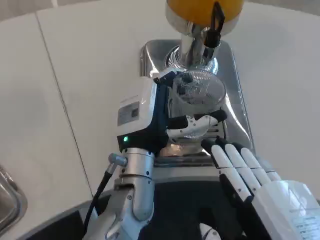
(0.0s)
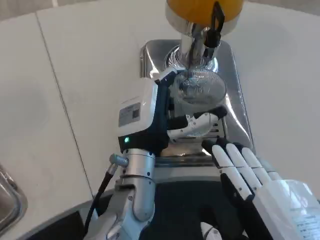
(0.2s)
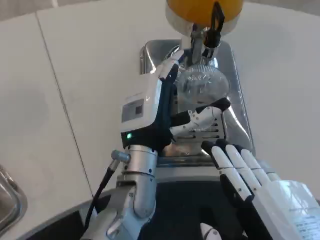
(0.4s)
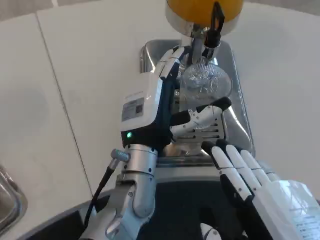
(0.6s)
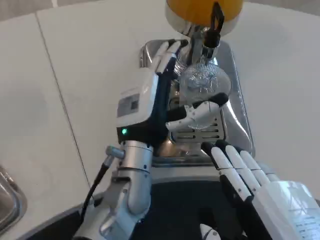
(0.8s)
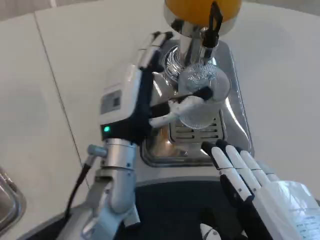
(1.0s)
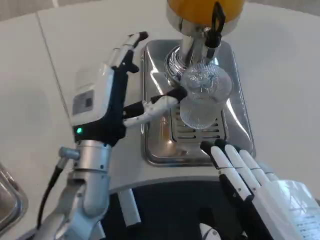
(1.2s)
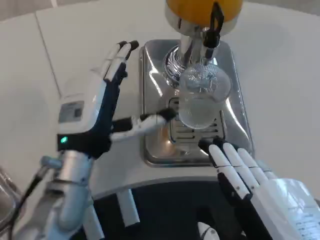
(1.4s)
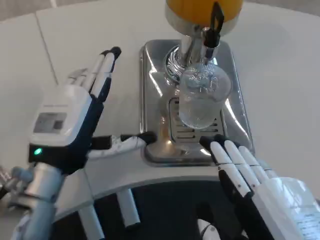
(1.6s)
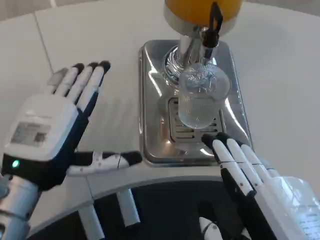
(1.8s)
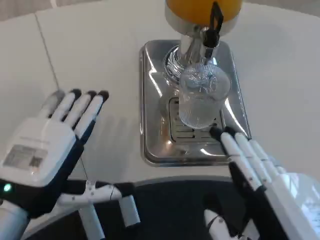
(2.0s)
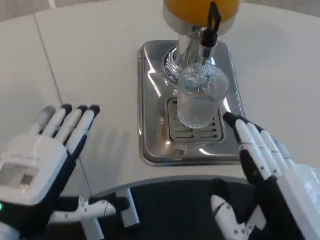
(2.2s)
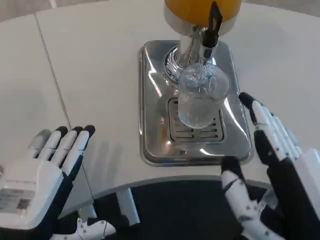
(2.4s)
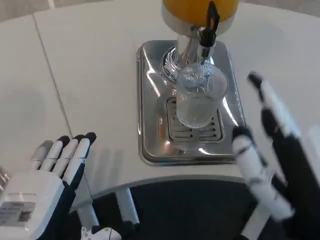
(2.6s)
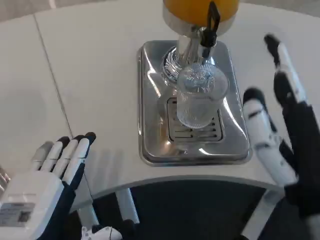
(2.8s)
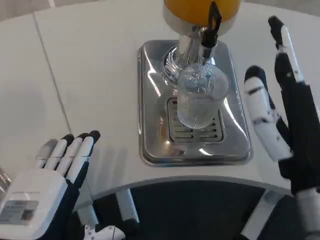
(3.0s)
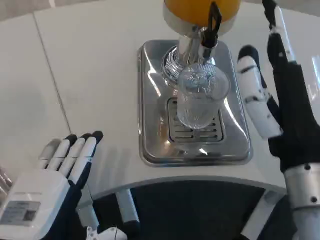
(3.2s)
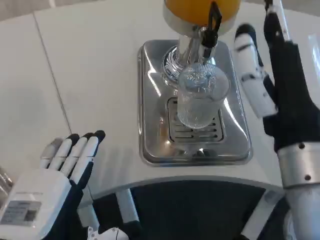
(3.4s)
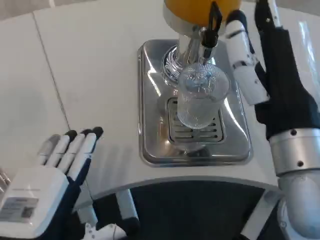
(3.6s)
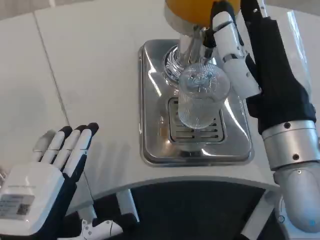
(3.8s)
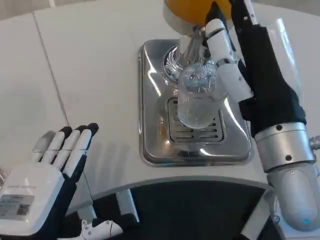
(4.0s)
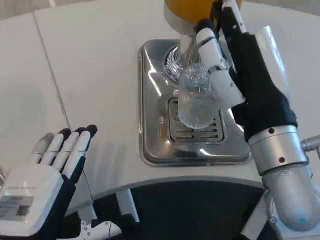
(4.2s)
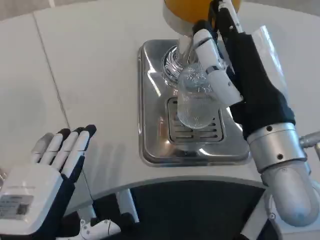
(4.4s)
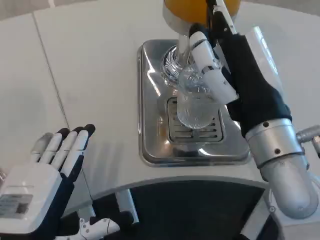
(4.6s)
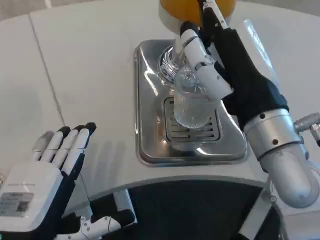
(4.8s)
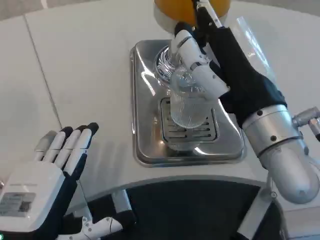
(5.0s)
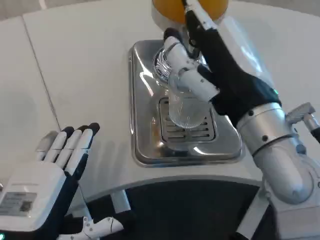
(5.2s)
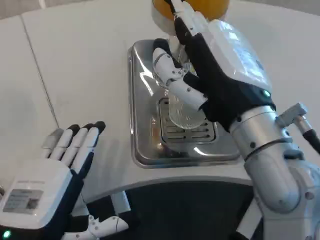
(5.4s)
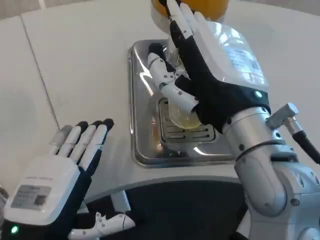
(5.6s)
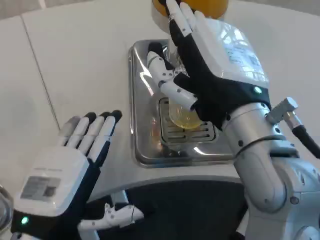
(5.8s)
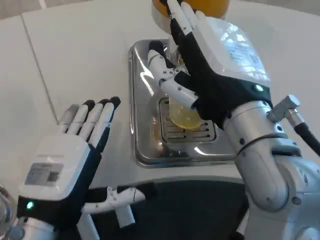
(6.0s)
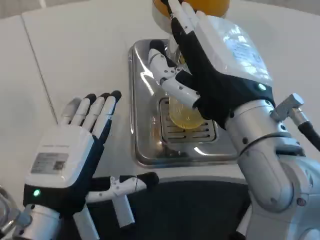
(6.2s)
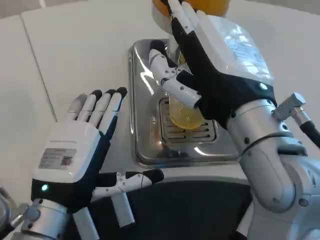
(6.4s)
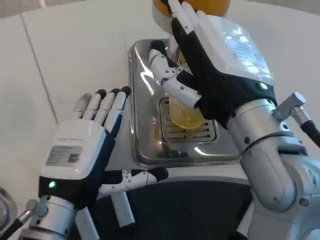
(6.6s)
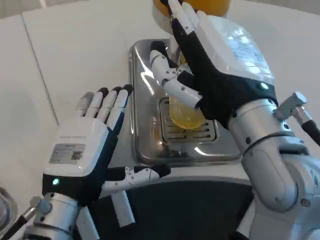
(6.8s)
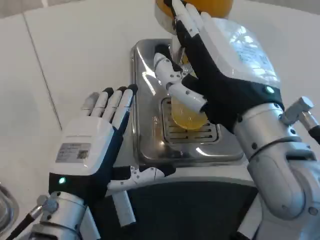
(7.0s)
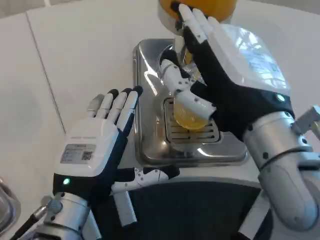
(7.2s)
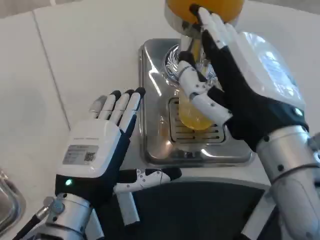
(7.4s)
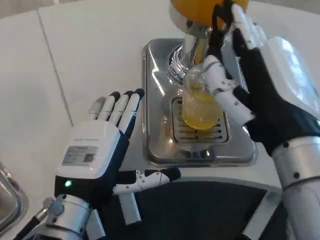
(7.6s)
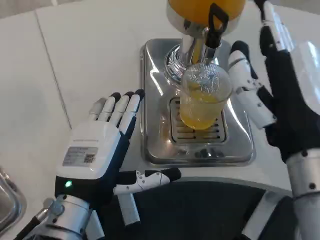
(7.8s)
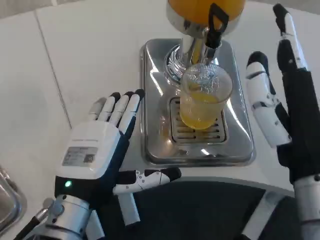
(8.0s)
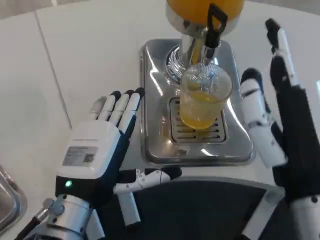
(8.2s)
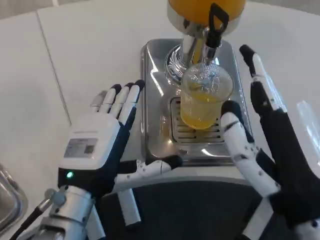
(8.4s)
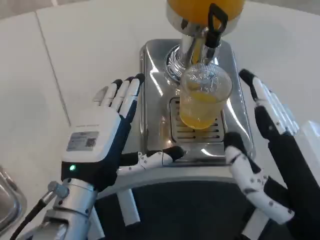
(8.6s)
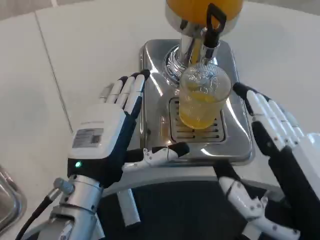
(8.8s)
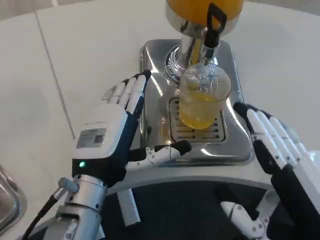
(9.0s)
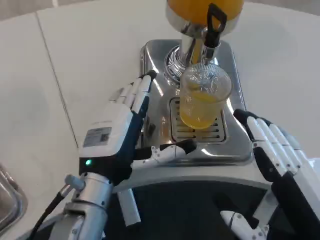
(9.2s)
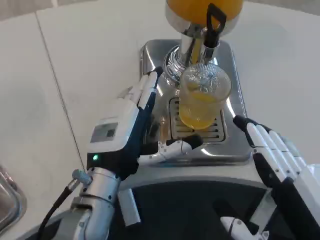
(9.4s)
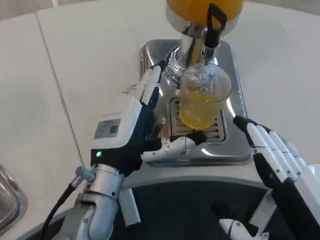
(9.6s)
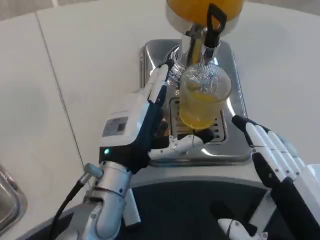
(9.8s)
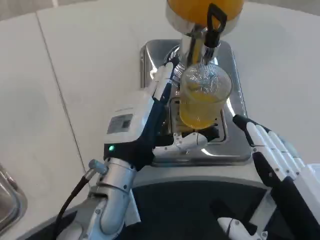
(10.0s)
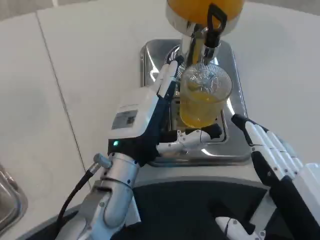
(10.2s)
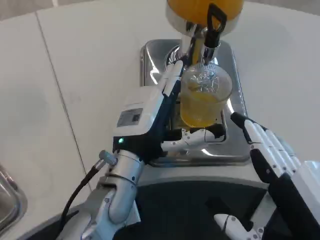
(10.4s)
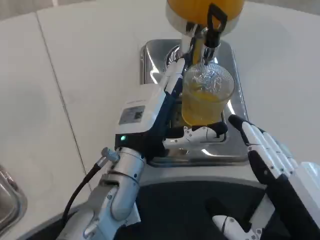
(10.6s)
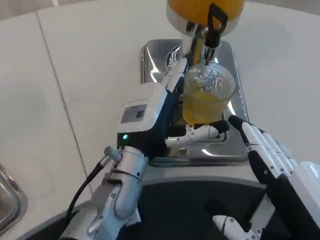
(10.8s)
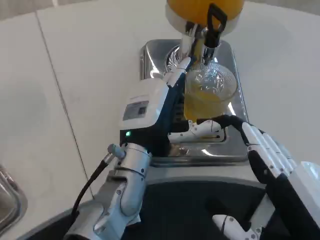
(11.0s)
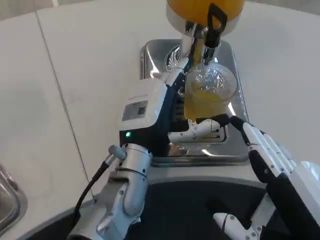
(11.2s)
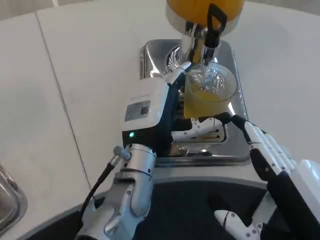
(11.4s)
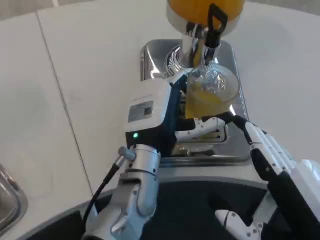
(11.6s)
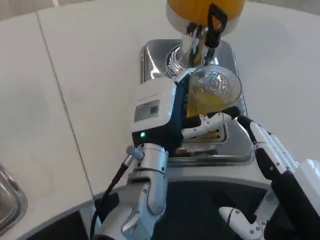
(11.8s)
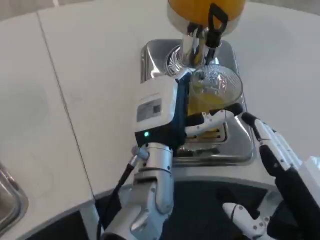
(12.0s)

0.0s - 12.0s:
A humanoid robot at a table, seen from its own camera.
Task of the whole recording: Grasp the cup under the faucet to collect the drink, then remove the cup.
0.0s - 1.6s: The left hand is displaced to the left by some 15 cm.
1.6s - 3.0s: The left hand goes some 10 cm backward, while the right hand is displaced forward by roughly 10 cm.
3.0s - 4.4s: The right hand is displaced forward by some 5 cm.
4.4s - 6.0s: The right hand ends up about 5 cm from where it was. Meanwhile the left hand moves some 5 cm.
6.0s - 7.6s: The right hand moves roughly 5 cm.
7.6s - 9.0s: The right hand goes some 15 cm backward, downward and to the right.
9.0s - 10.4s: The left hand moves approximately 5 cm.
10.4s - 12.0s: The left hand shifts about 5 cm to the right.

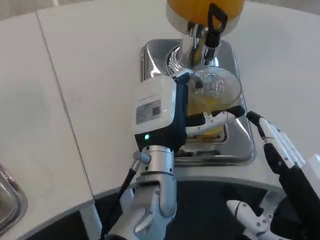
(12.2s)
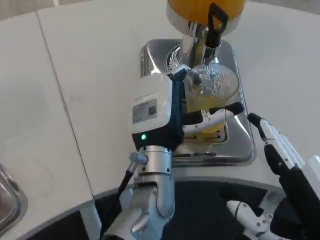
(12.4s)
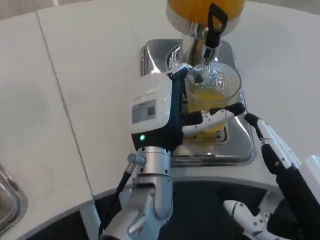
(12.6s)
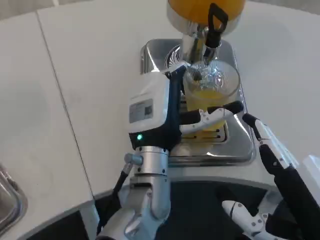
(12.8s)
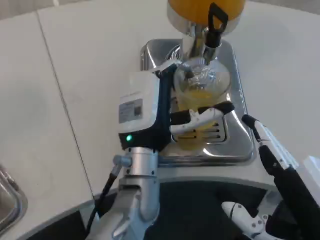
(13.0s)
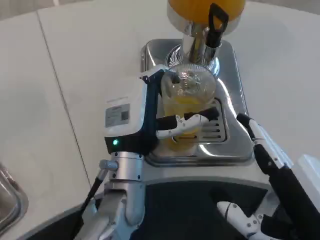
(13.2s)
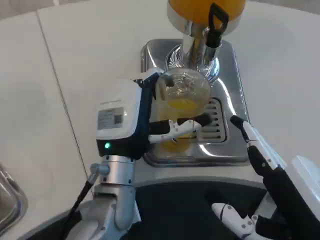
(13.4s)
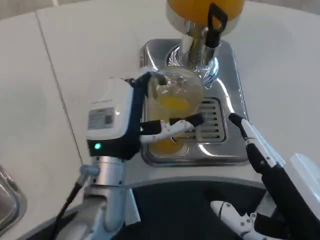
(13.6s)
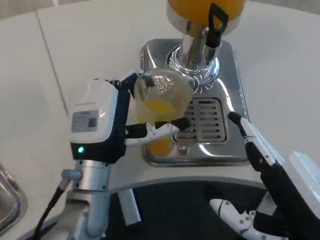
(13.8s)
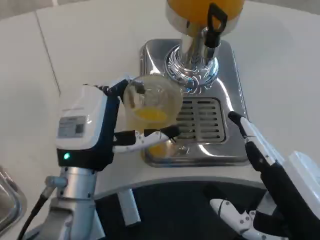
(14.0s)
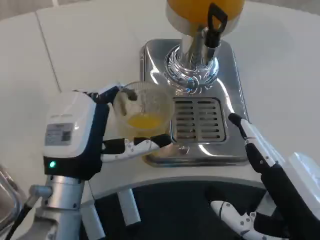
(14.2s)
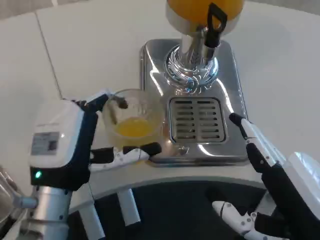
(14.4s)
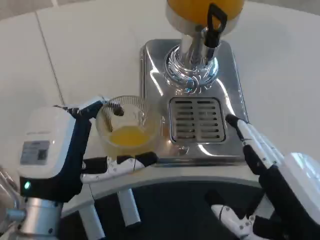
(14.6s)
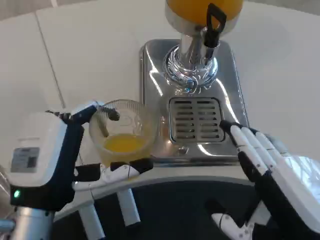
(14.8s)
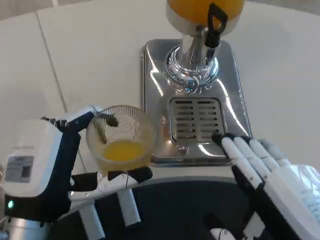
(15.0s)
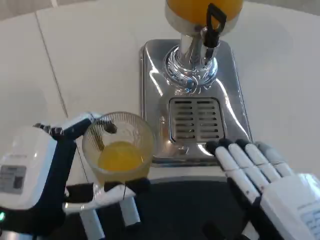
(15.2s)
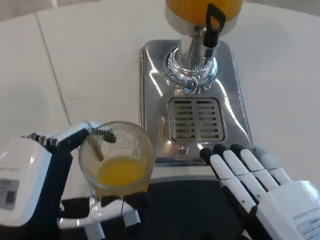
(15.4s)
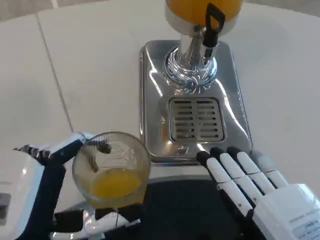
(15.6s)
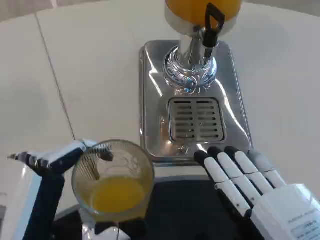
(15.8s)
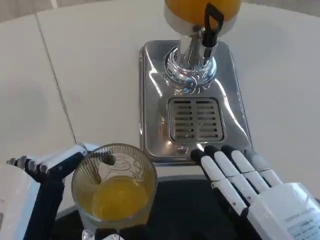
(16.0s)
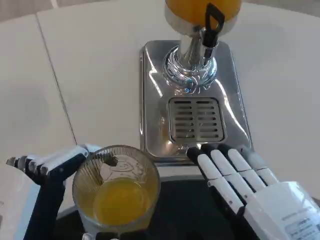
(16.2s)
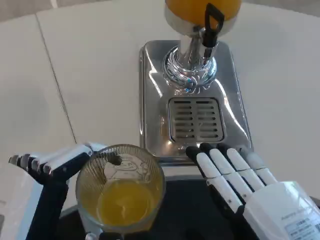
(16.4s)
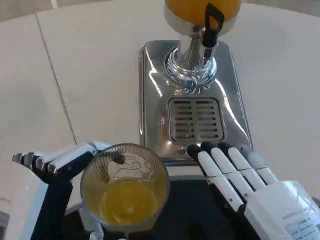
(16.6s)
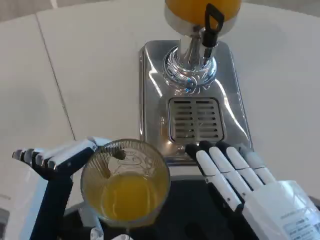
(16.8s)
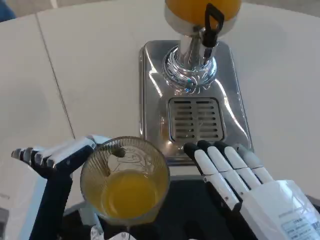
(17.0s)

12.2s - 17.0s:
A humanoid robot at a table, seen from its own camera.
Task of the whole recording: Grasp the cup under the faucet to collect the drink, then remove the cup.
12.2s - 13.8s: The left hand is displaced to the left by about 10 cm.
13.8s - 15.4s: The left hand goes approximately 15 cm backward and to the left.
15.4s - 17.0s: The hands stay close to where they were, moving slightly.

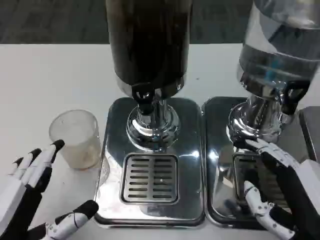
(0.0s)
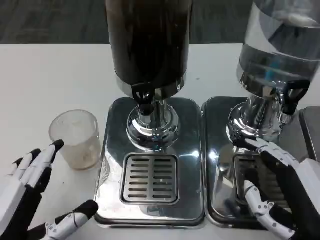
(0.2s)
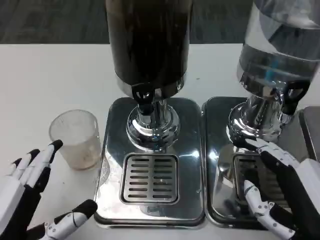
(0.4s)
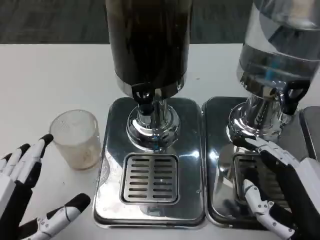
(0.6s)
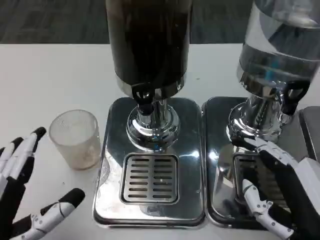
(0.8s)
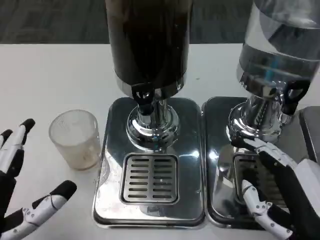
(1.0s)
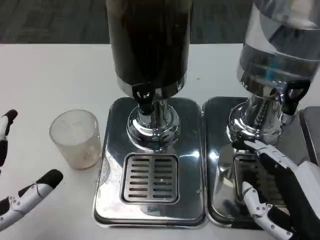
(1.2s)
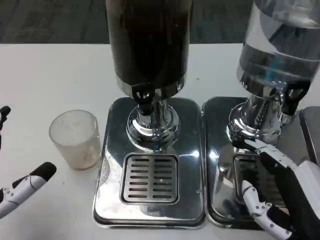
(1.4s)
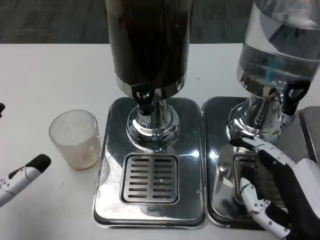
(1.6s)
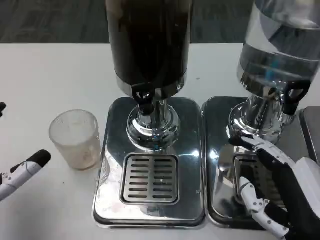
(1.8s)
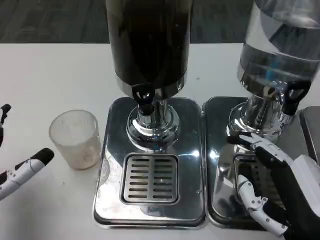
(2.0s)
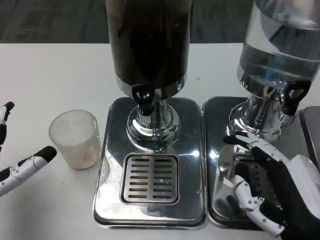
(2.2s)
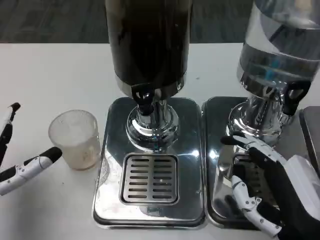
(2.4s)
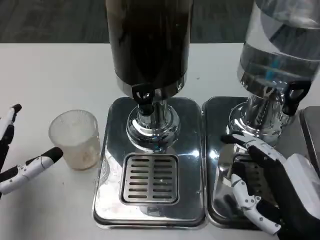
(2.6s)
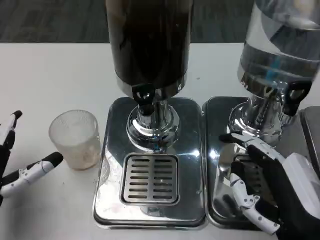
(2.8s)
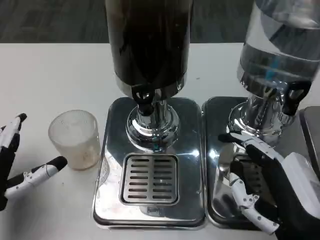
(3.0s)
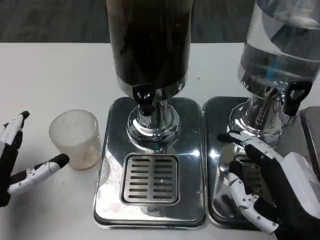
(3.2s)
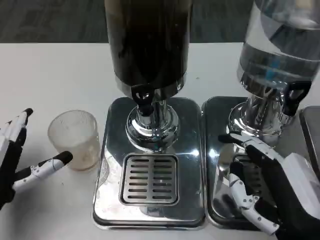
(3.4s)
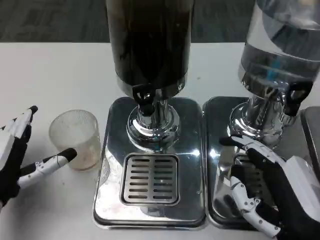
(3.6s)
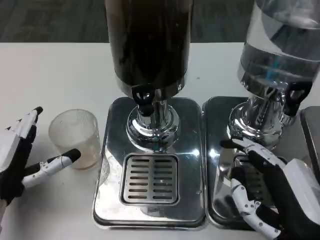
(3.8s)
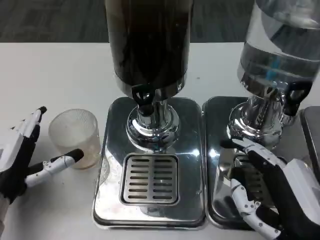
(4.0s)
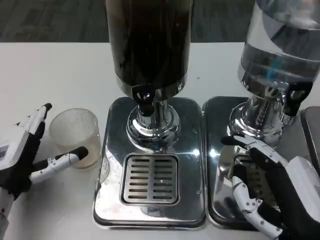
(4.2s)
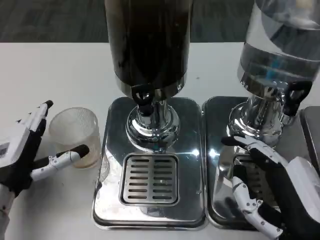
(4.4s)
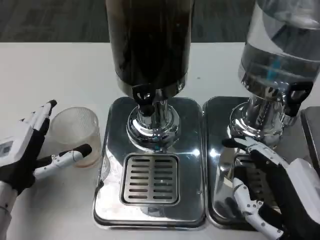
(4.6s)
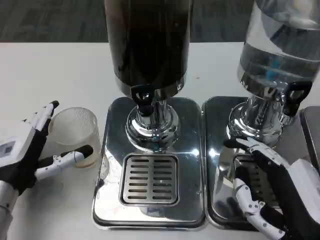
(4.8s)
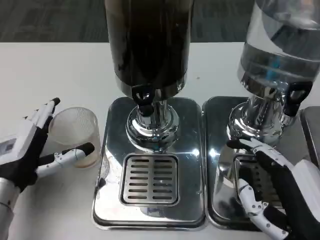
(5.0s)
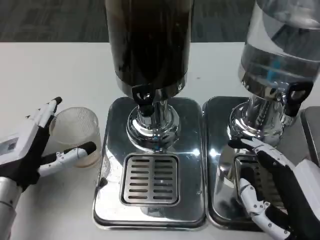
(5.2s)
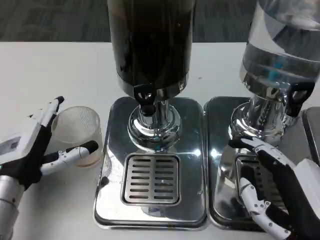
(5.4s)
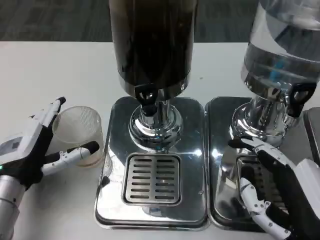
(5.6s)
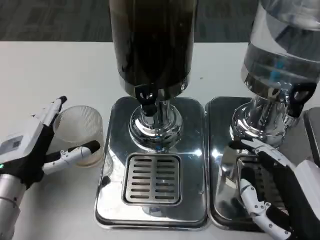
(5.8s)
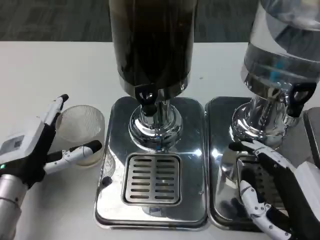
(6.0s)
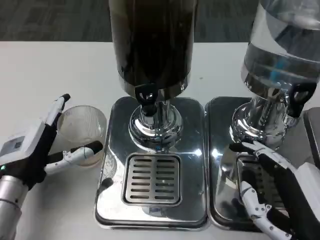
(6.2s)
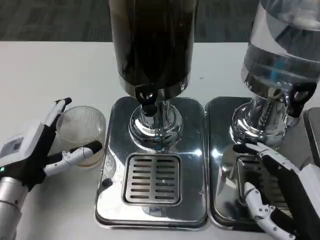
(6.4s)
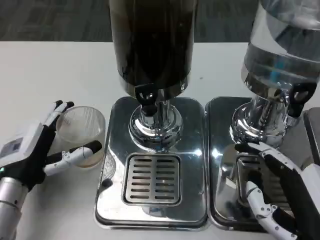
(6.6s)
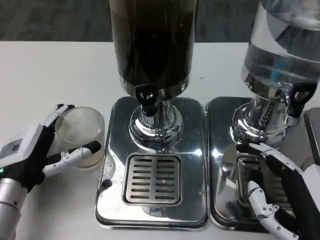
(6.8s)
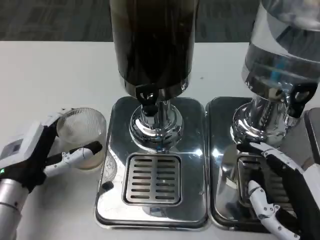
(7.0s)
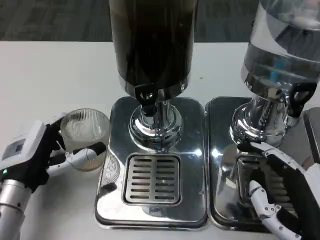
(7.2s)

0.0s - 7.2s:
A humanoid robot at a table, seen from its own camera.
Task of the whole recording: Grasp the cup under the faucet to collect the drink, then remove the cup.
0.0s - 1.4s: The hands move only a little.
1.4s - 2.8s: The left hand is displaced forward by approximately 5 cm.
2.8s - 4.4s: The left hand ends up about 5 cm from where it was.
5.8s - 7.2s: The hands stay close to where they were, moving slightly.
